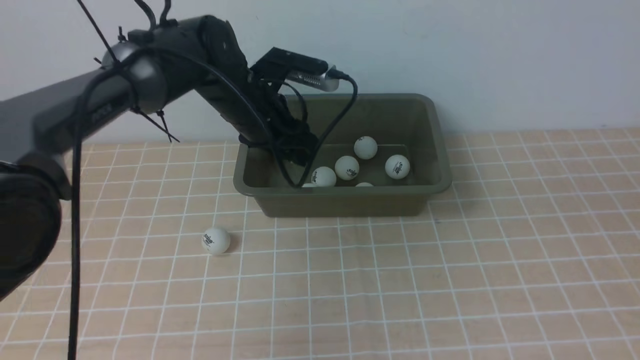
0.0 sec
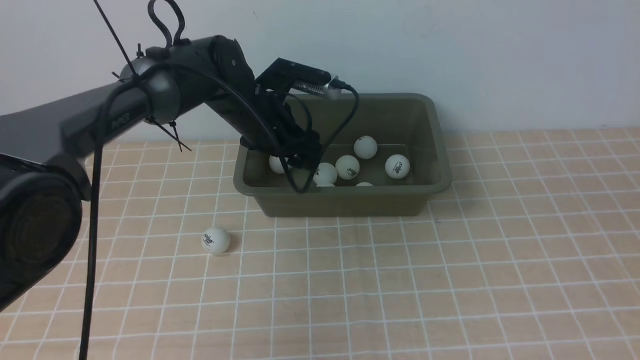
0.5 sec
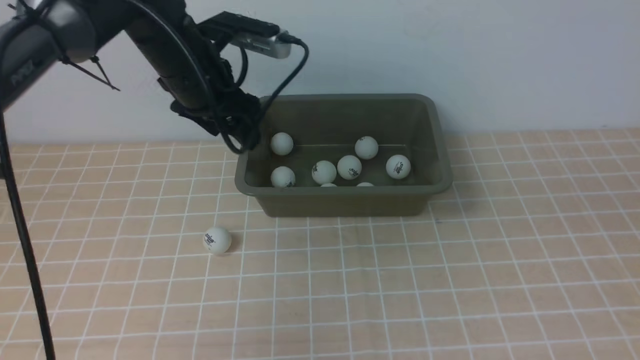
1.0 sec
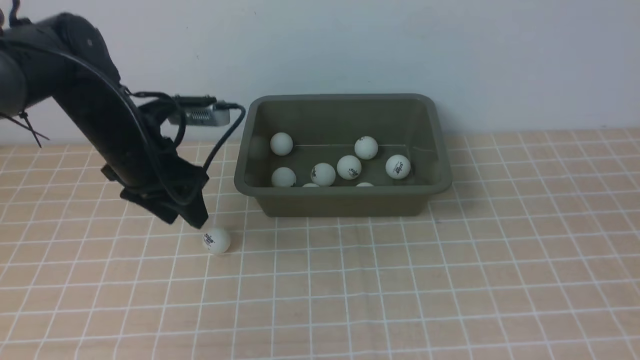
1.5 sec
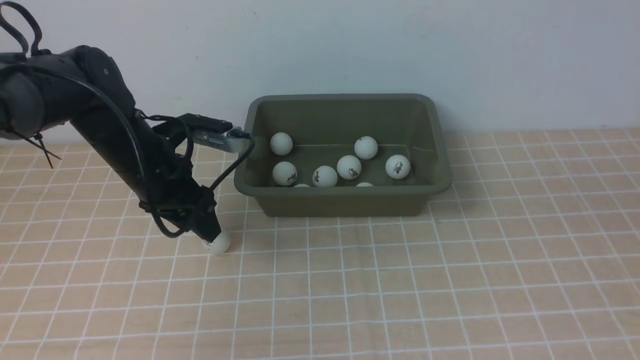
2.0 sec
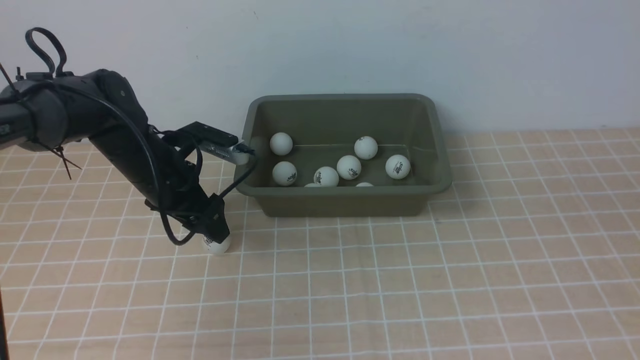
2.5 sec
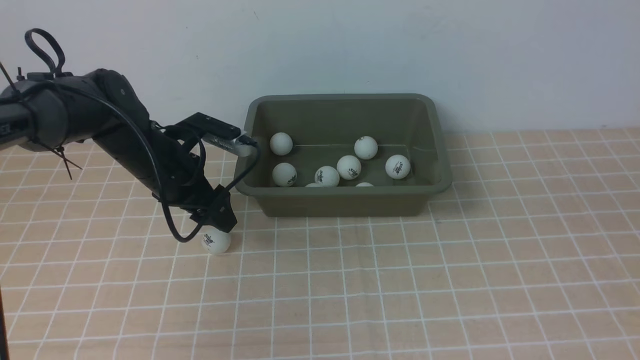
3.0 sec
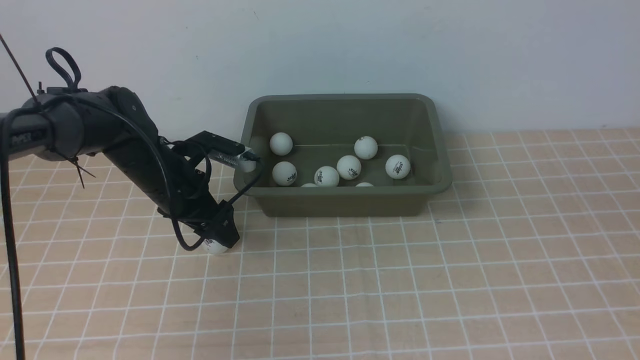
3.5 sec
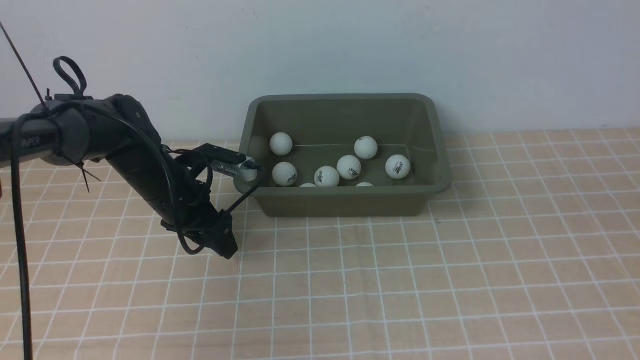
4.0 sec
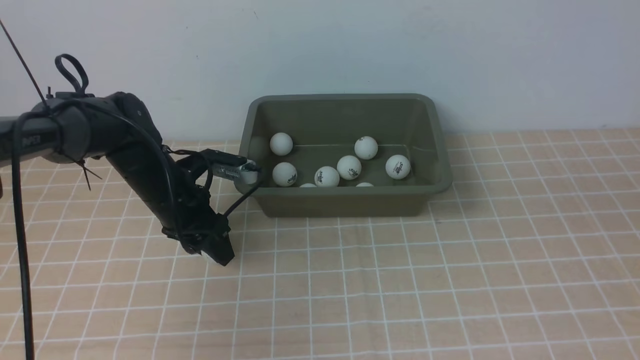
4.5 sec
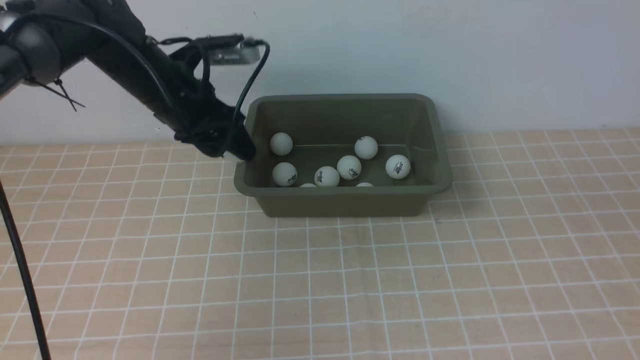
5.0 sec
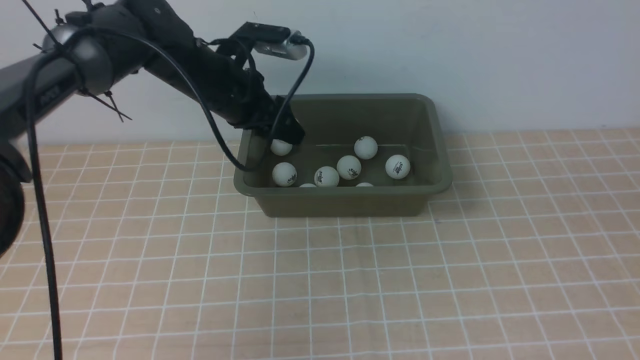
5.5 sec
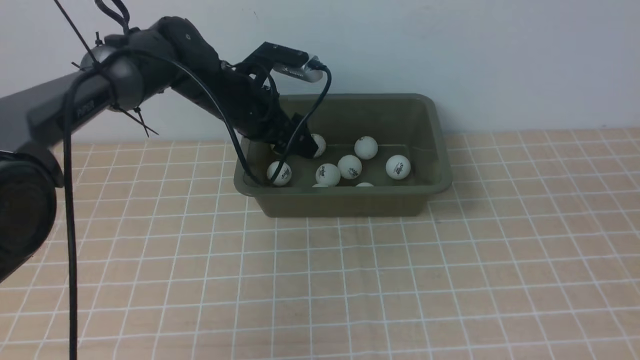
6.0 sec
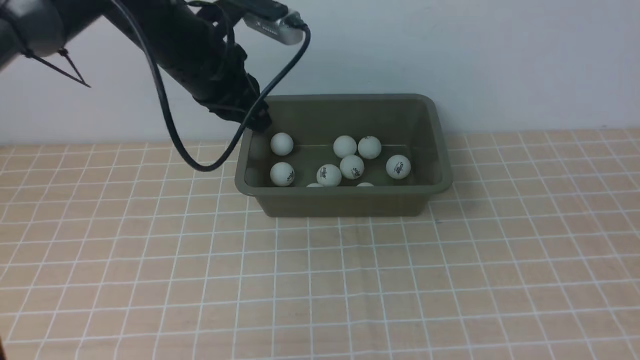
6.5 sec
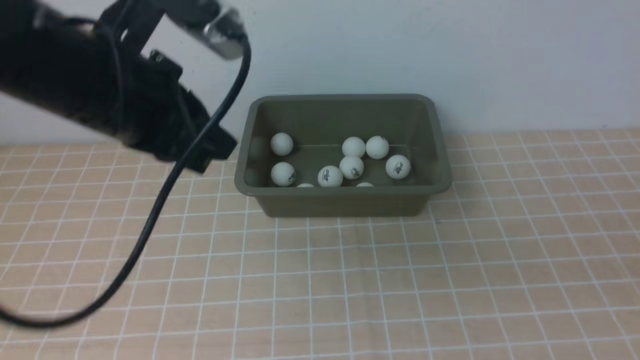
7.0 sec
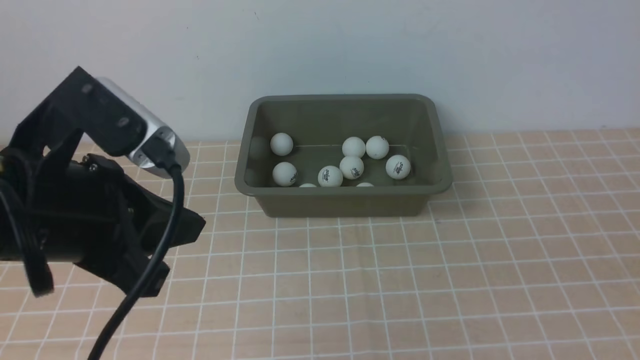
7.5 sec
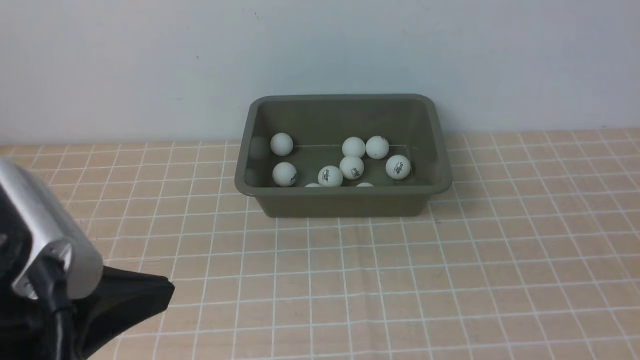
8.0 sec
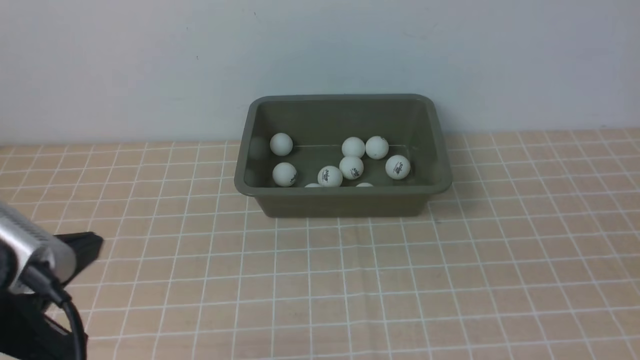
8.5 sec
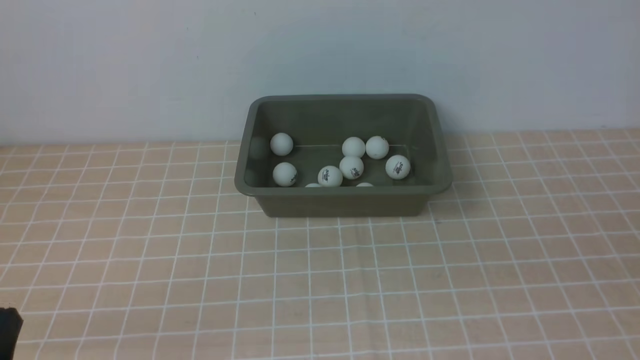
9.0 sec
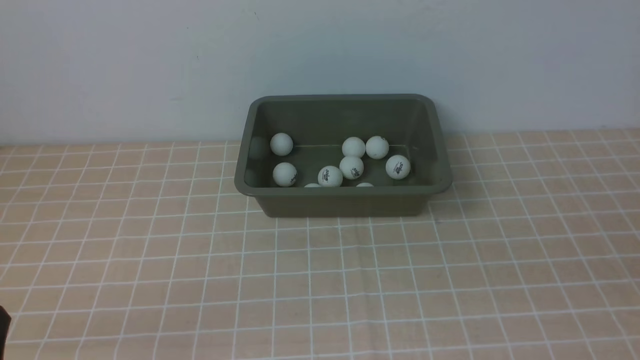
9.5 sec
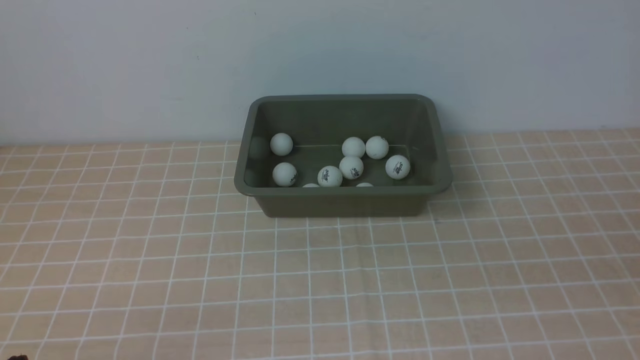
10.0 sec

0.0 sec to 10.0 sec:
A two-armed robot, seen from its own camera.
Step, 1.0 sec to 4.5 sec: use the left arm to clamp the table tennis ball closest to it.
Step, 5.0 sec to 6.5 sec: use the left arm to put the table tennis ball into the box.
0.0 sec to 2.0 sec: The left gripper goes about 15 cm to the left and backward.
2.0 sec to 4.0 sec: The left gripper travels downward by about 5 cm.
4.0 sec to 6.0 sec: The left gripper moves upward, to the right and forward, approximately 15 cm.
6.0 sec to 8.0 sec: The right gripper moves downward, some 10 cm; the left gripper travels backward by some 35 cm, and closes.
8.0 sec to 10.0 sec: The left gripper heads downward and to the left, covering approximately 20 cm.

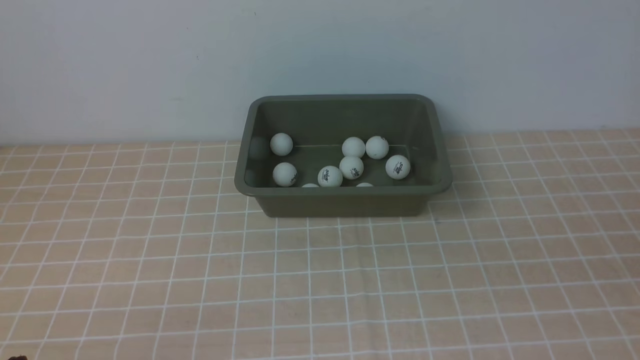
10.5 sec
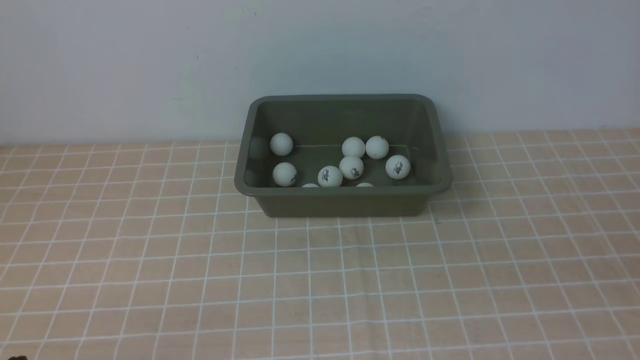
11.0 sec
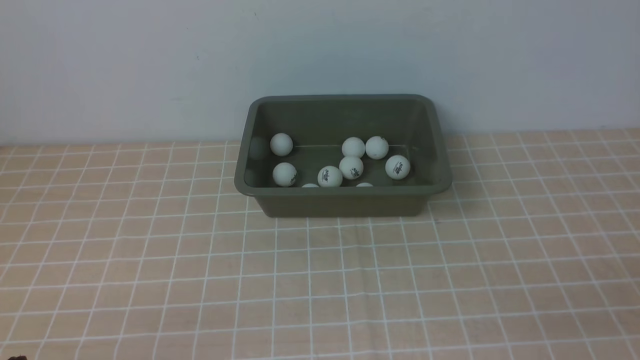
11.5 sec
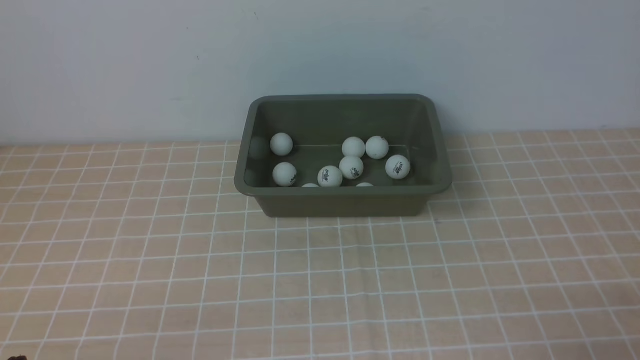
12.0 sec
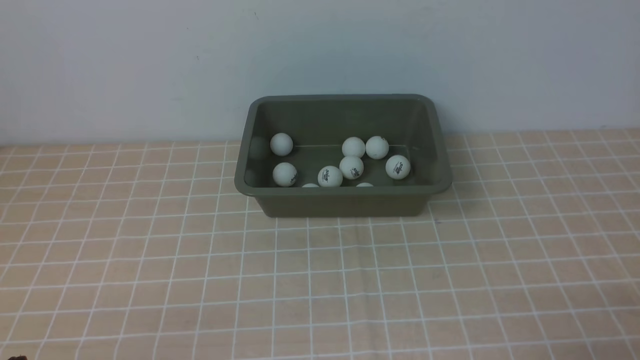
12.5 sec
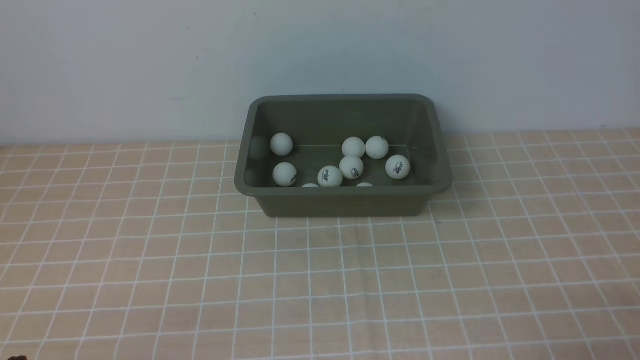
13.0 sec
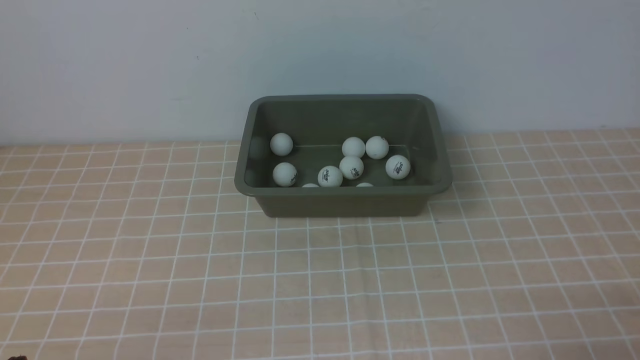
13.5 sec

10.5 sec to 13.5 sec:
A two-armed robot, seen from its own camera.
12.0 sec to 13.5 sec: Neither gripper changes place.
